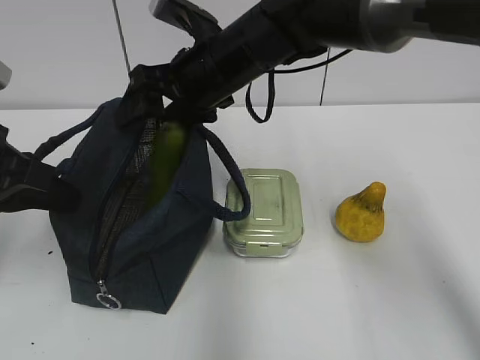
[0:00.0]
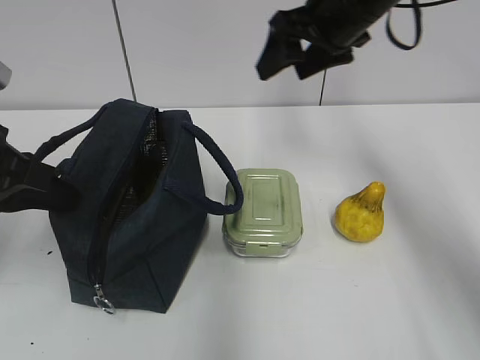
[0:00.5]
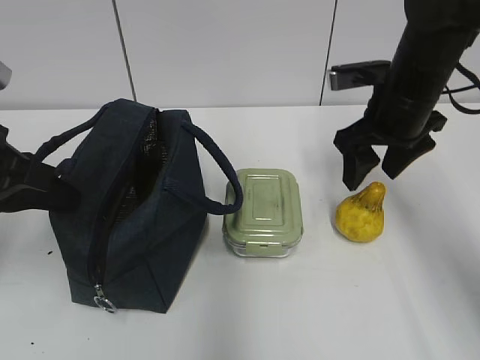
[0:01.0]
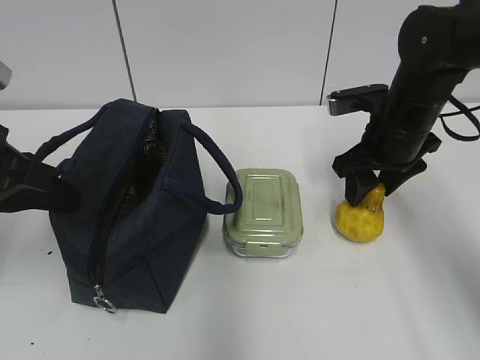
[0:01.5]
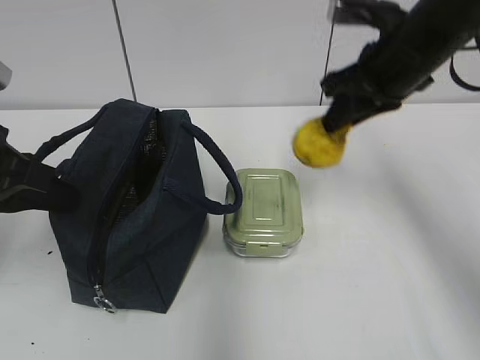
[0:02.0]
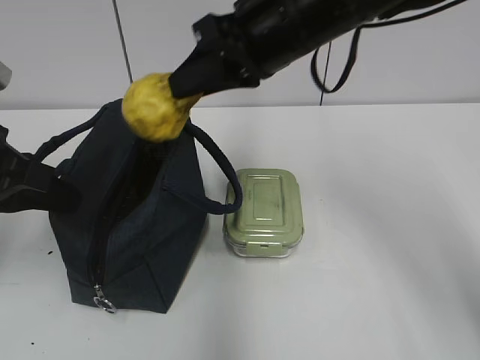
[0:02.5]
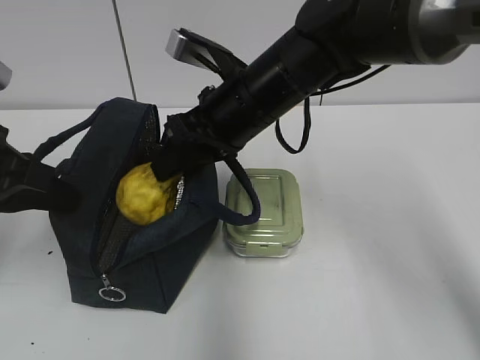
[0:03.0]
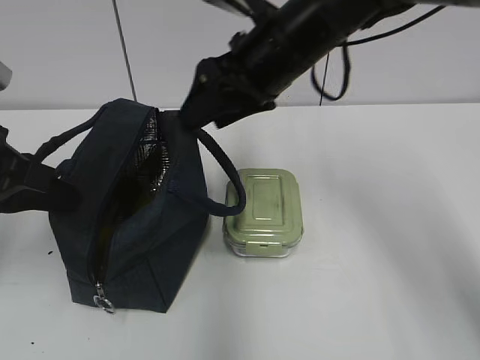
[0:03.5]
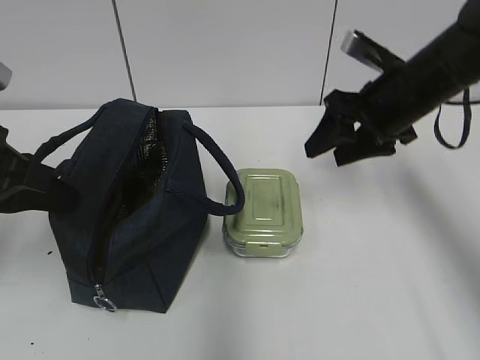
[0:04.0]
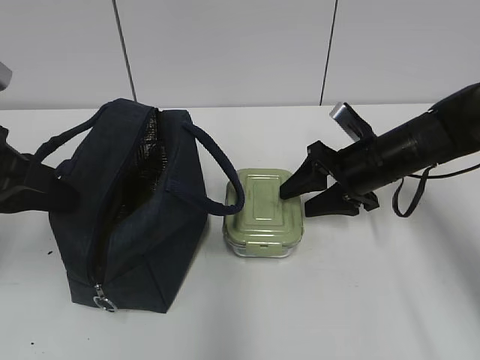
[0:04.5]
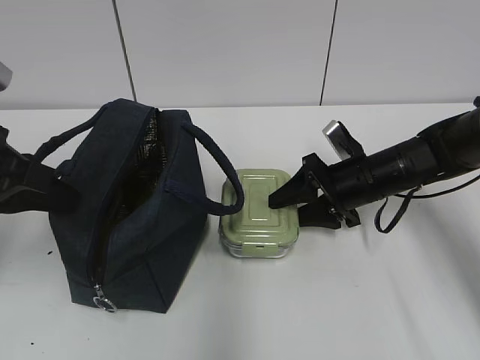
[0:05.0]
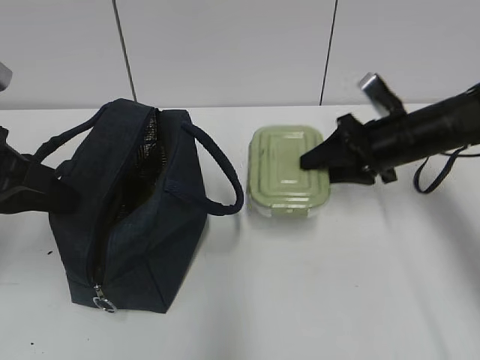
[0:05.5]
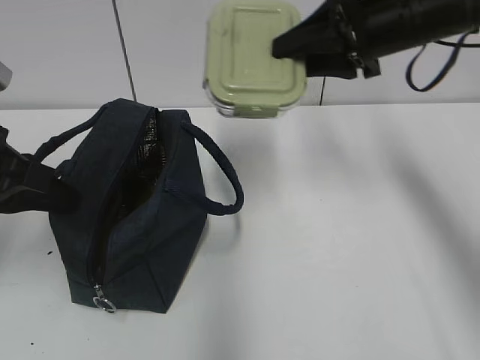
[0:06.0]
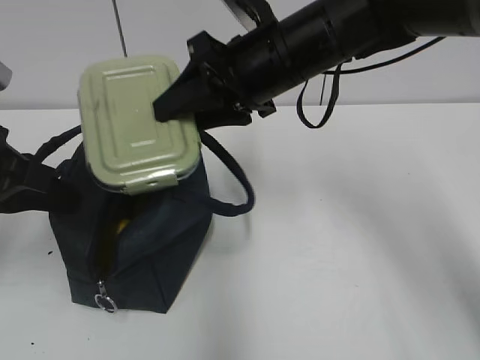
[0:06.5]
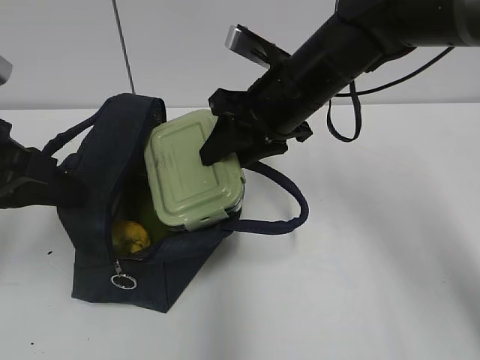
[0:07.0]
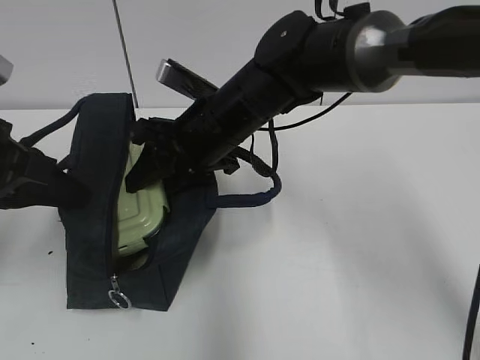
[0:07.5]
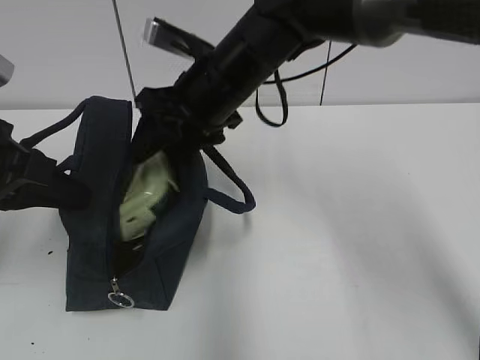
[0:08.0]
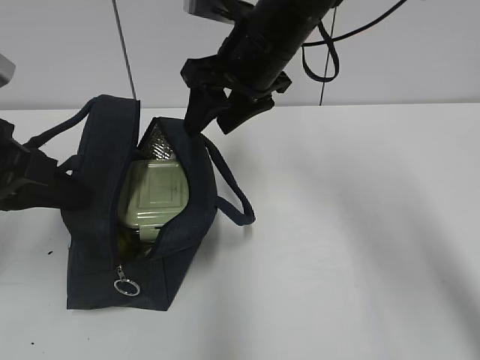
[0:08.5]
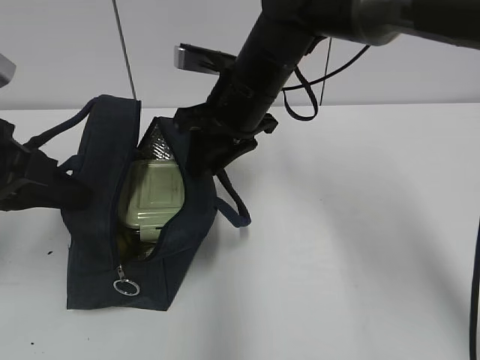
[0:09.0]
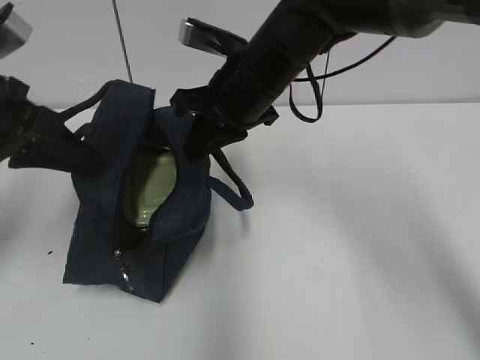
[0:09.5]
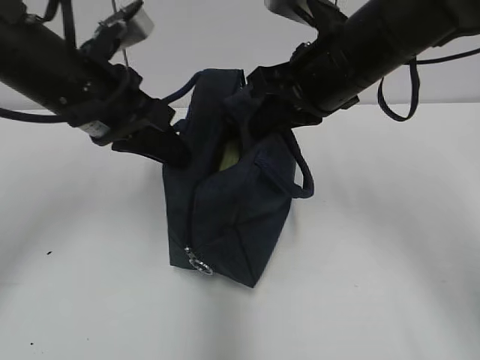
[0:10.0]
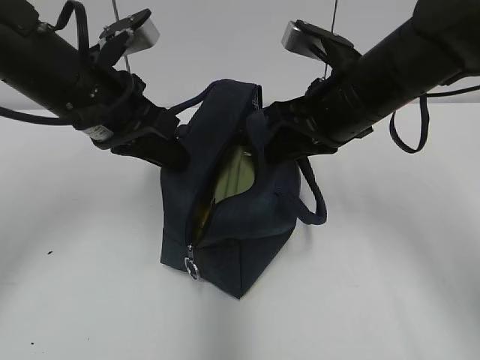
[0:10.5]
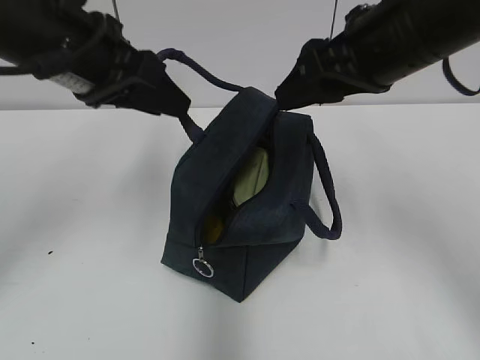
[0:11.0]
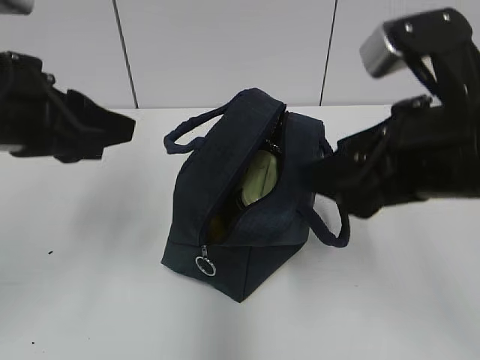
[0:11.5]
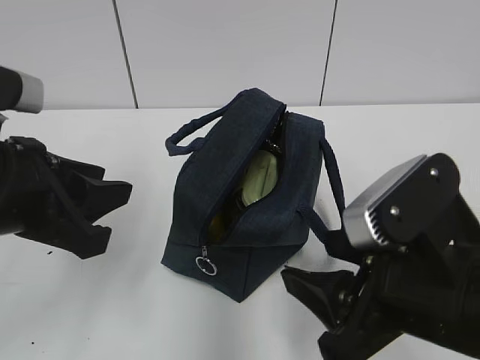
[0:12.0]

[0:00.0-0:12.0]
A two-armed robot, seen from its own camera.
Step, 0:00.5 to 0:01.5: Grab the pear with your right hand.
Step, 0:02.0 to 0:03.0: Place it into the bag with your right hand.
Step, 0:03.5 to 0:05.0: Grab the lunch box with your right hand.
Step, 0:09.5 to 0:10.5: Move the lunch bag to the right.
0:00.0 to 0:02.0: The right gripper is displaced to the right by some 15 cm, and closes its fingers.
0:02.0 to 0:04.0: The right gripper travels downward by approximately 5 cm, moves approximately 15 cm to the left and comes back, and opens its fingers.
0:04.0 to 0:06.0: The right gripper is displaced upward by about 10 cm.
0:06.0 to 0:08.0: The right gripper travels to the left by some 15 cm.
0:08.0 to 0:10.0: The right gripper heads to the right, covering approximately 10 cm, and closes its fingers; the left gripper shifts roughly 10 cm to the right and forward.
0:10.0 to 0:12.0: The left gripper moves backward, approximately 10 cm, and opens. Meanwhile the right gripper goes roughly 20 cm backward, and opens up.

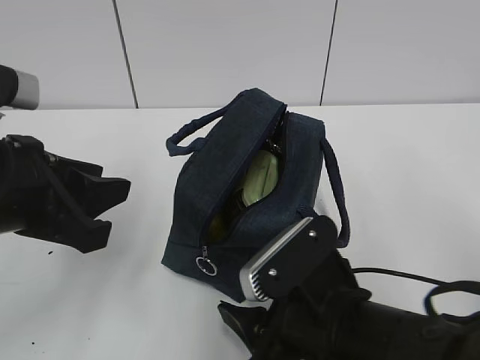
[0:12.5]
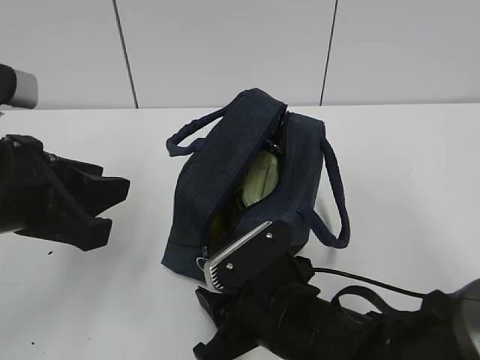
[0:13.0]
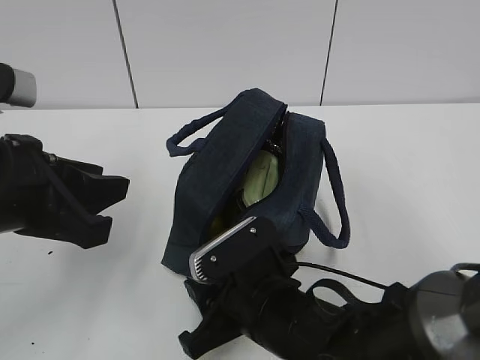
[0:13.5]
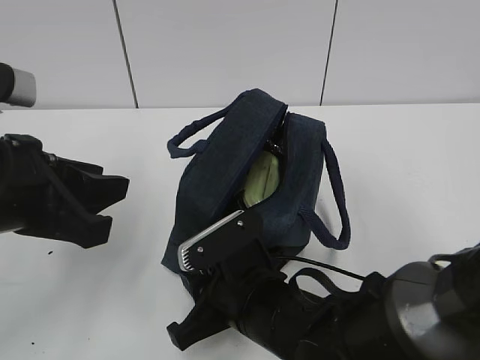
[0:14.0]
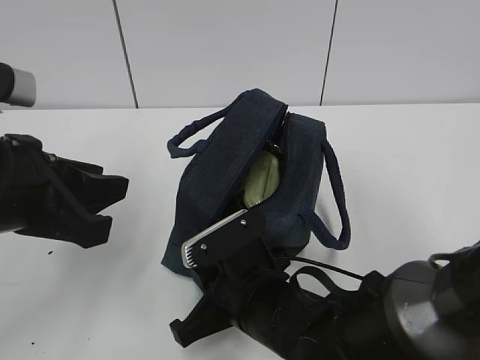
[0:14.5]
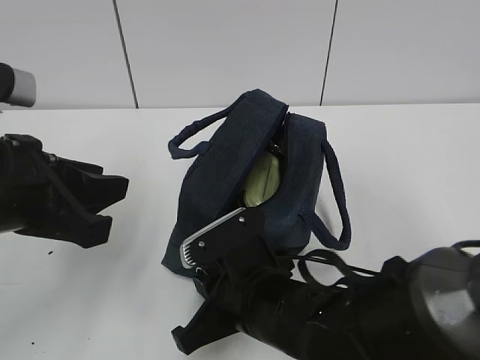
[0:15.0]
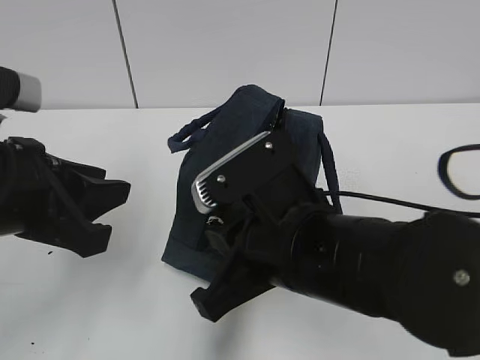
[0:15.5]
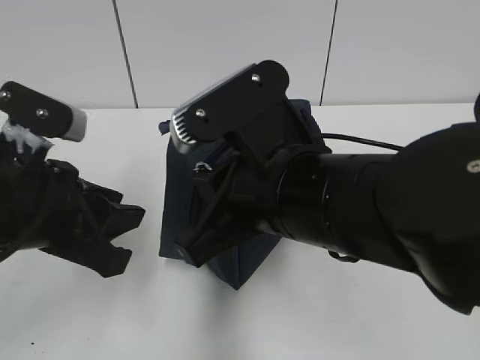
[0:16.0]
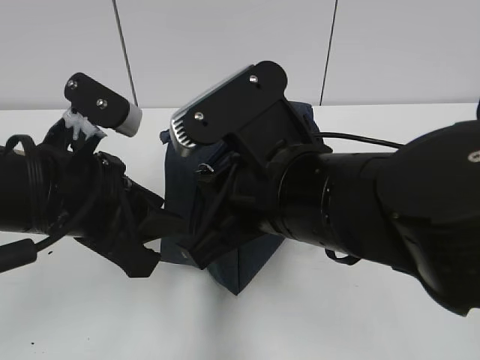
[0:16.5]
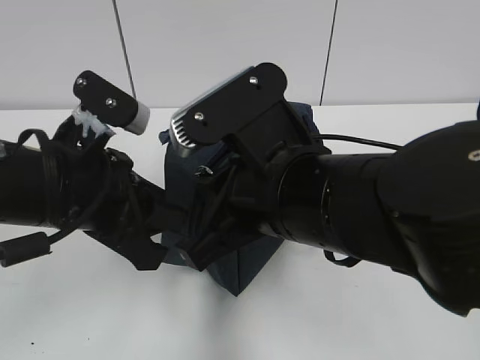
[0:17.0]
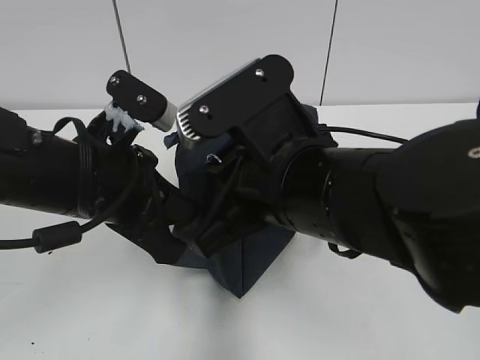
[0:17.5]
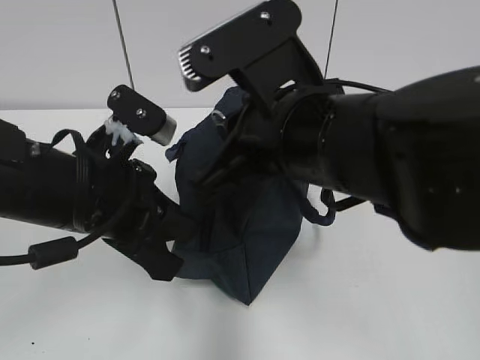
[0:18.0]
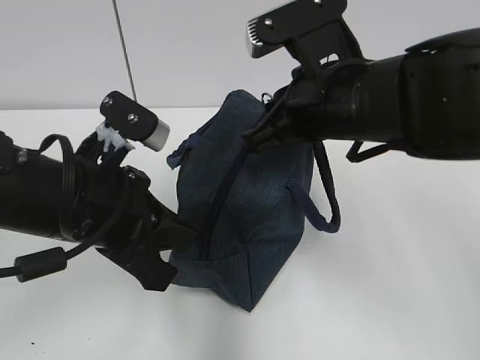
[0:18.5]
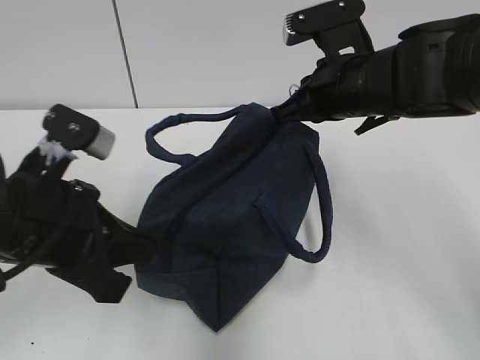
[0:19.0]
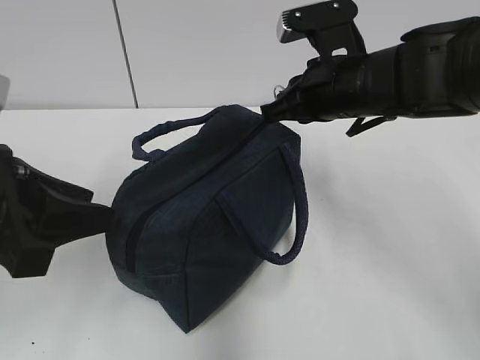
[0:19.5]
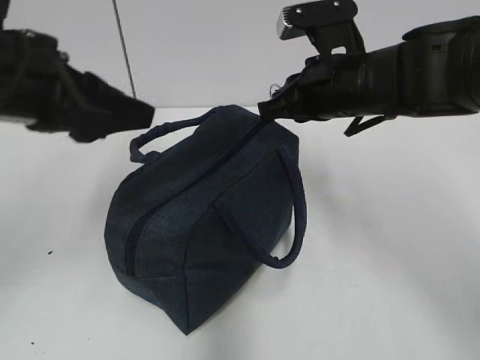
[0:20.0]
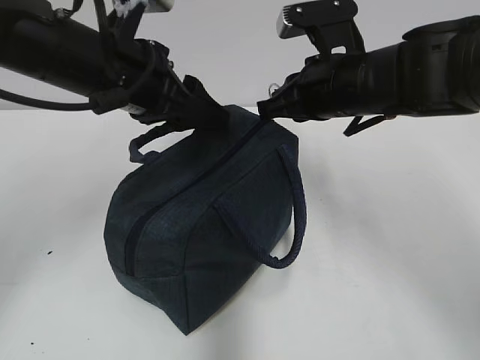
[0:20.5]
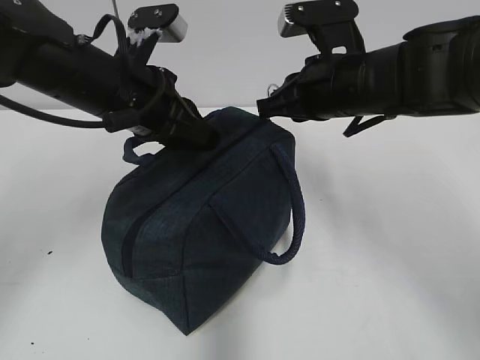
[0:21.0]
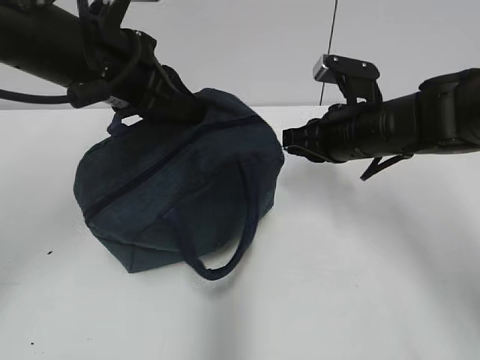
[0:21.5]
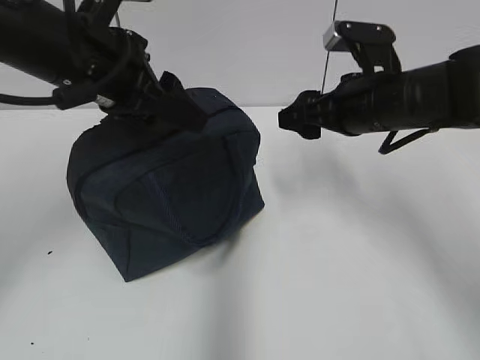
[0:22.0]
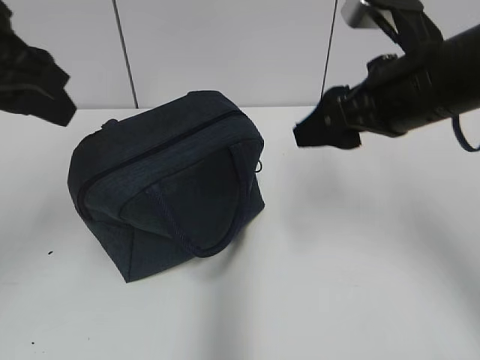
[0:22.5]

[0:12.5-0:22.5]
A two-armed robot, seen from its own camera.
Step, 0:12.5 to 0:17.0: Grab the lunch bag with your left hand.
Step, 0:17.5 to 0:21.5: Pull the zipper with your right hand.
0:12.5 to 0:14.5: The right gripper is displaced forward and to the left by some 5 cm, and closes its fingers.
0:14.5 to 0:16.5: The right gripper is displaced upward by some 15 cm.
0:16.5 to 0:18.5: The left gripper closes, while the right gripper is displaced forward and to the right by about 10 cm.
0:18.5 to 0:20.5: The right gripper goes roughly 5 cm forward, while the left gripper shifts approximately 10 cm forward and upward, and opens.
0:20.5 to 0:22.5: The right gripper travels backward by roughly 5 cm, goes downward and returns, approximately 5 cm each way, and opens its fingers, while the left gripper travels to the left, upward and backward by about 15 cm, and closes, then opens again.

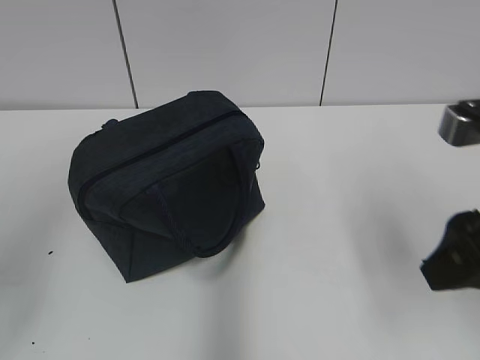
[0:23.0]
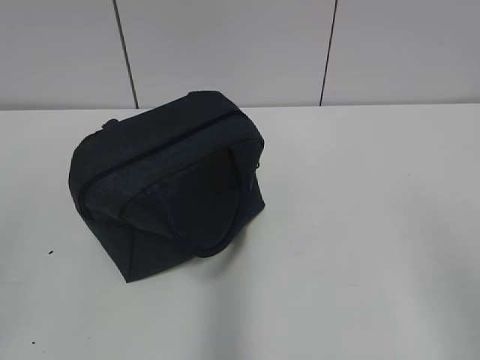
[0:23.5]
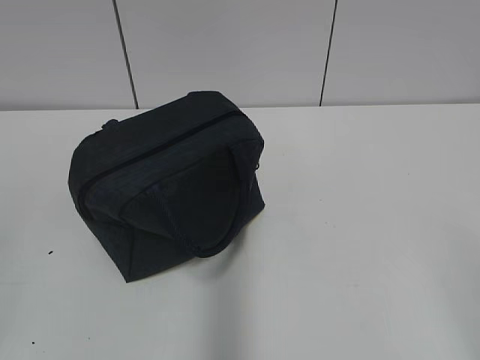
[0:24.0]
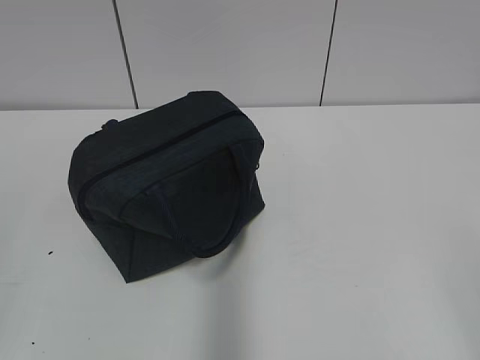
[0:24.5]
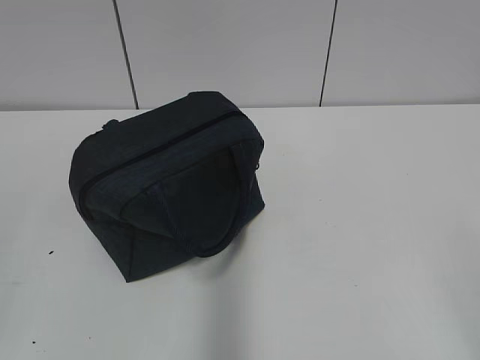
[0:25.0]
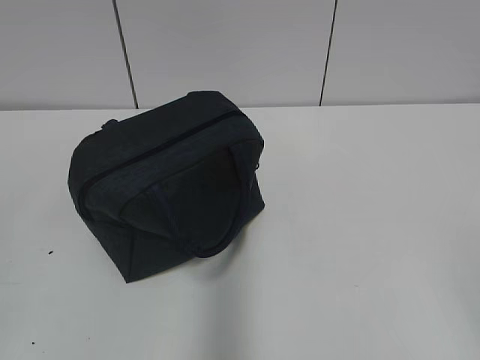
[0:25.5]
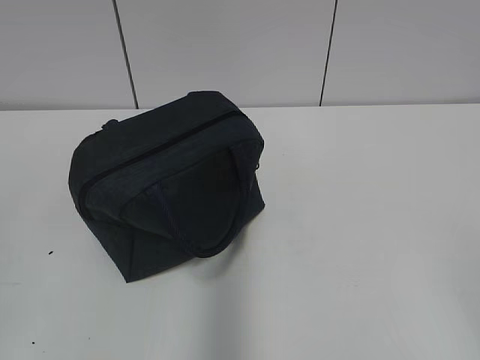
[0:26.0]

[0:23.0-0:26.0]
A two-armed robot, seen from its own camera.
0:23.0 to 0:24.5: The right gripper heads backward, covering about 20 cm.
